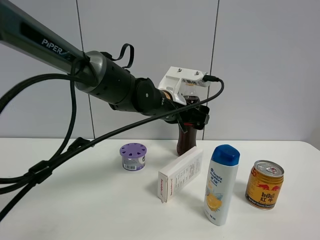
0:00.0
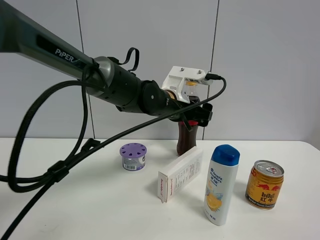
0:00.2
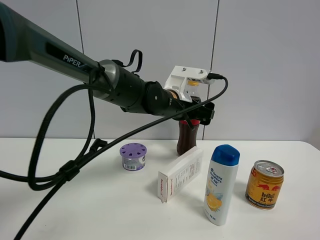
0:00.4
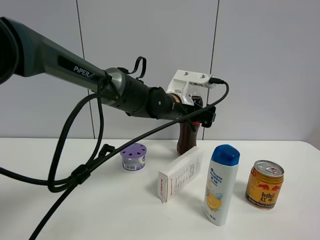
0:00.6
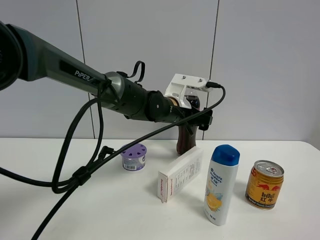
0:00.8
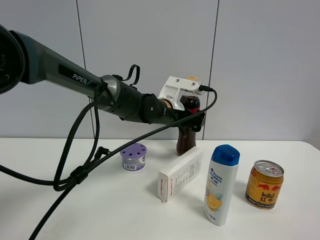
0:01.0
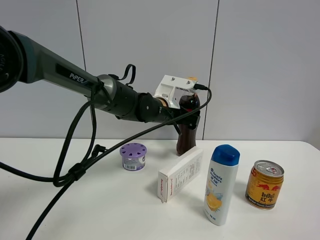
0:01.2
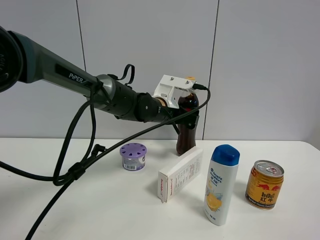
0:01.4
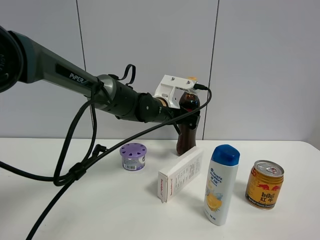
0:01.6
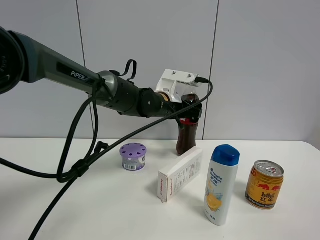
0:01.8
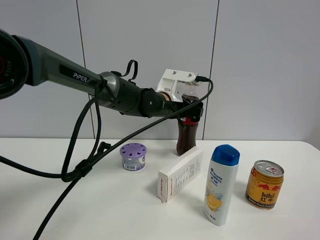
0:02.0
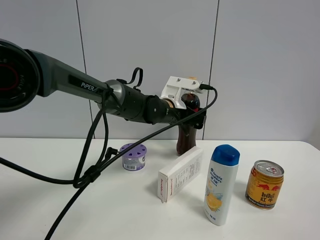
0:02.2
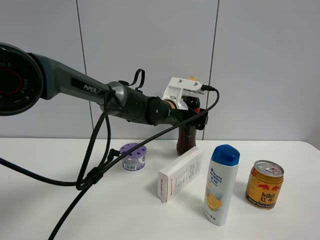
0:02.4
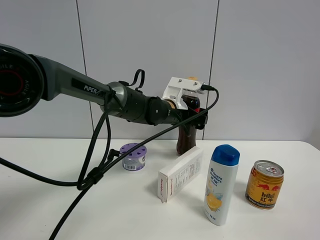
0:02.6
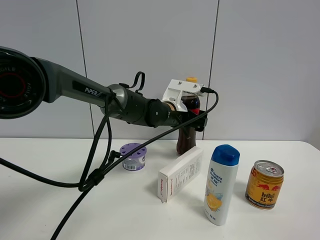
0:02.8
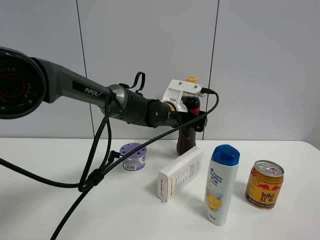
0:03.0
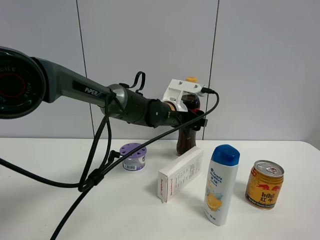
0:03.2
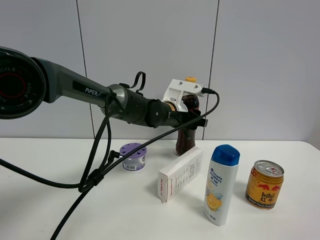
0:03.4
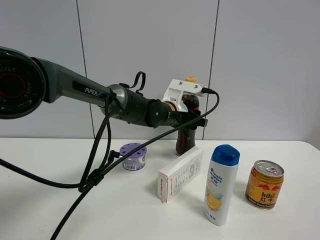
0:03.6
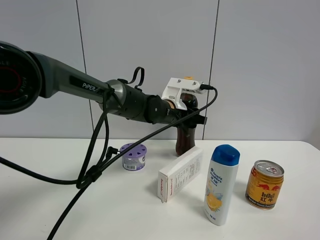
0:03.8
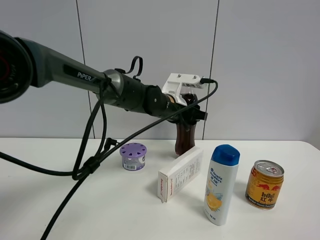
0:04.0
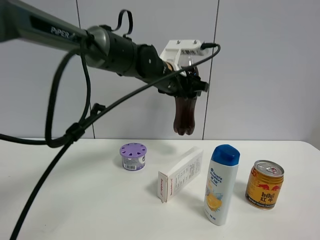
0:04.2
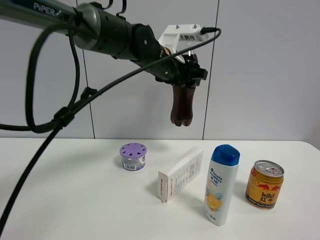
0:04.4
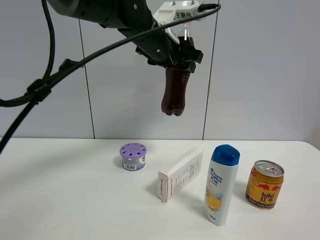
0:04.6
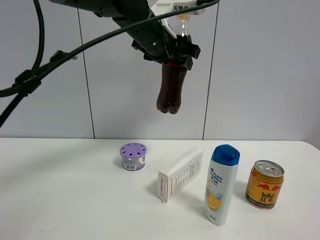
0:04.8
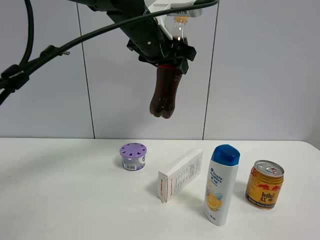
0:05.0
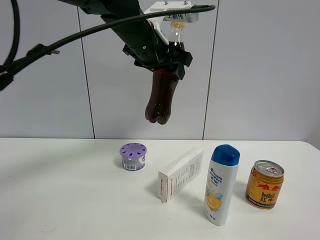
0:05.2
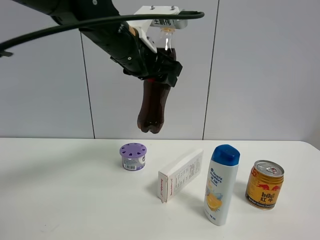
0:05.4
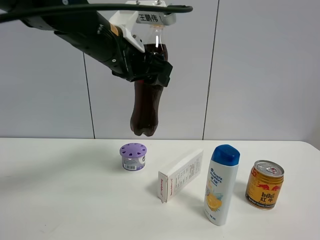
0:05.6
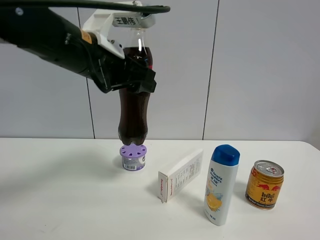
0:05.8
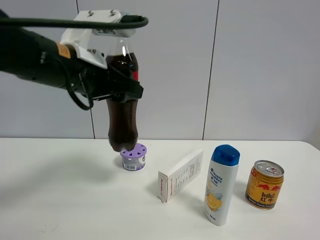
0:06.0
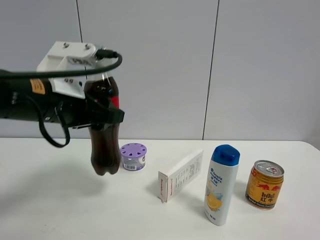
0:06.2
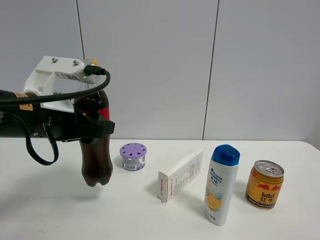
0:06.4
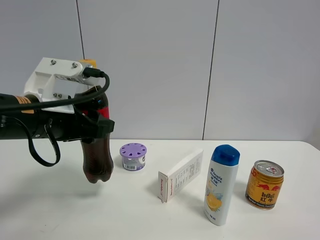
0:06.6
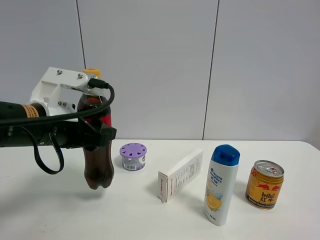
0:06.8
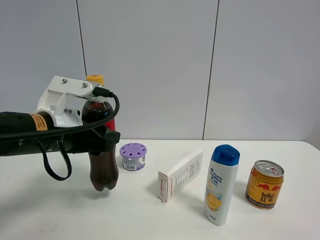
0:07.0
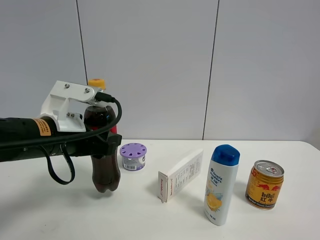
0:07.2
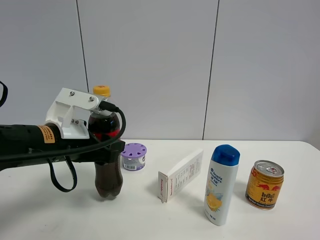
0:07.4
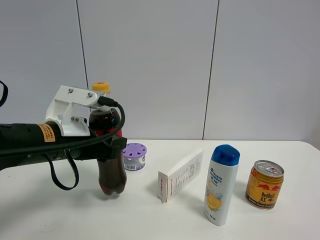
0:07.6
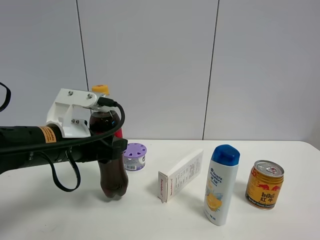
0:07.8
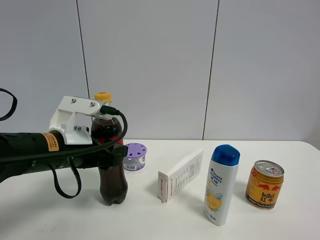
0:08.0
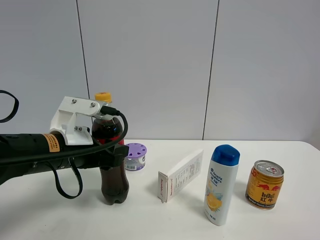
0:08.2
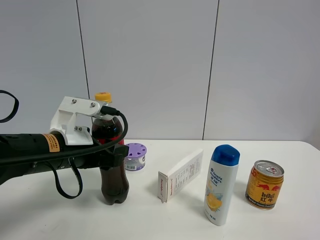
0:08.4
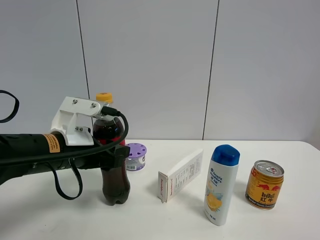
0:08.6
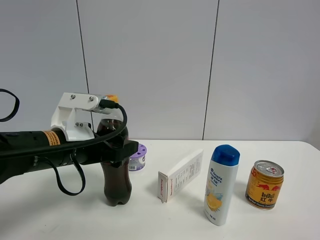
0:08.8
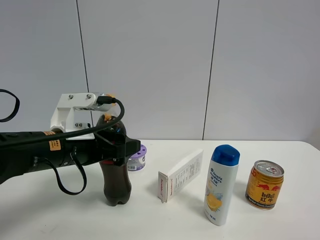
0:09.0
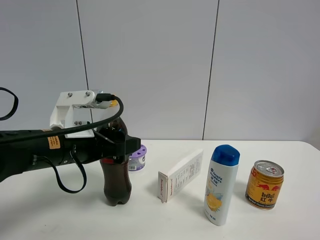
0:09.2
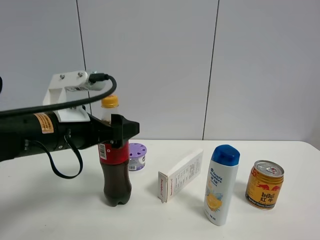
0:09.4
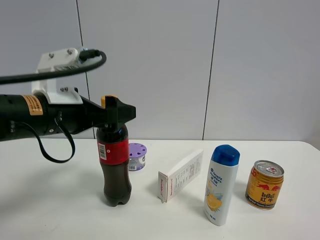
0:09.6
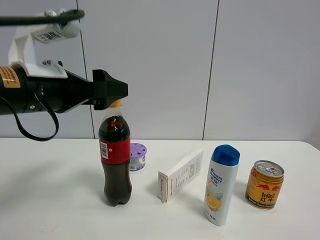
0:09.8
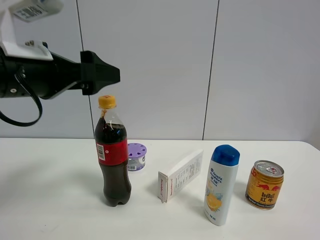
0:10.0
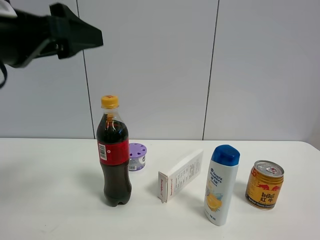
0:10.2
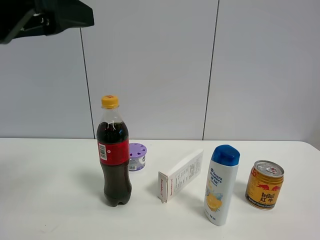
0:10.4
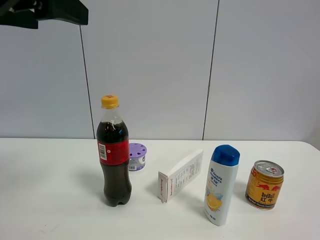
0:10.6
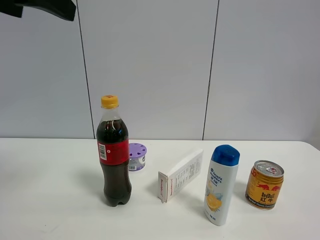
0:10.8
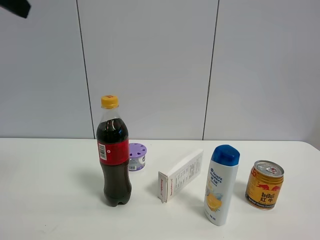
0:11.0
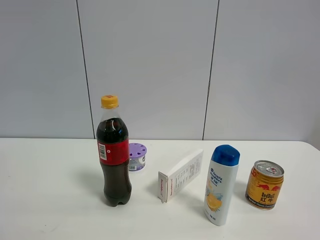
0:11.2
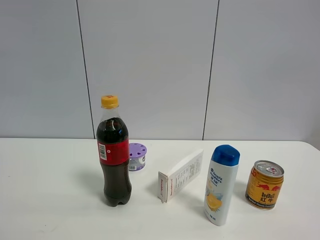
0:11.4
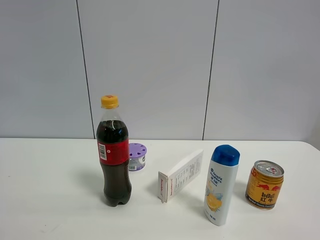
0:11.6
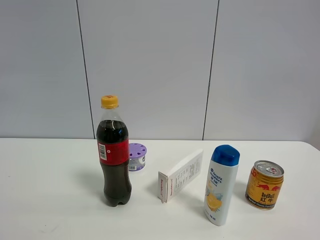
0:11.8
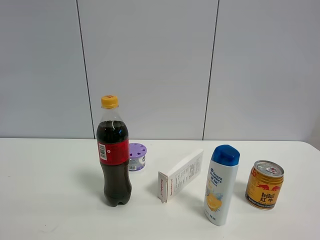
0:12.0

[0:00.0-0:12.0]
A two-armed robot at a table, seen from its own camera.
Task of the whole recording: the gripper move the object.
Step, 0:00.0 to 0:03.2: Grasp the coke with the left gripper.
Step, 0:03.4 to 0:09.2: Place the coke on the table with the left gripper.
0:00.0 to 0:01.6: The left gripper heads forward, covering roughly 5 cm.
0:01.6 to 0:03.0: The grippers stay close to where they were, moving slightly.
0:03.0 to 0:04.4: The left gripper travels upward by approximately 15 cm, and closes.
0:04.4 to 0:06.0: The left gripper travels backward and to the left by about 20 cm.
0:06.0 to 0:07.6: The left gripper heads downward, covering about 10 cm.
0:07.6 to 0:09.0: The left gripper opens up.
0:09.0 to 0:10.4: The left gripper travels upward by about 20 cm.
0:10.4 to 0:12.0: The left gripper heads to the left, backward and upward, covering approximately 20 cm.

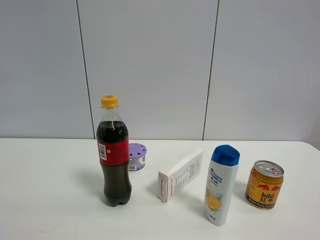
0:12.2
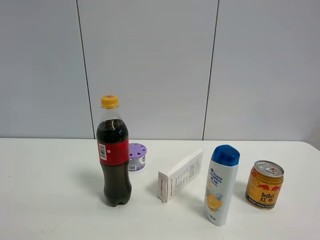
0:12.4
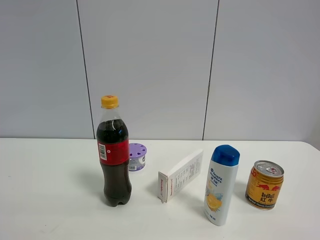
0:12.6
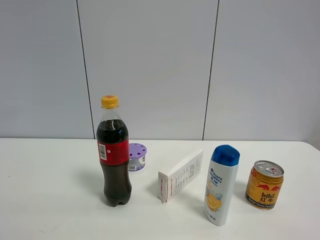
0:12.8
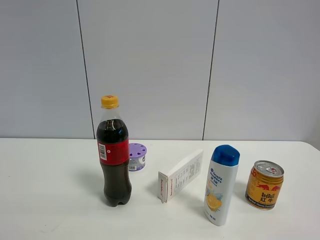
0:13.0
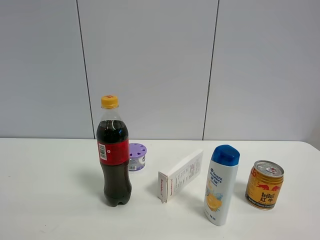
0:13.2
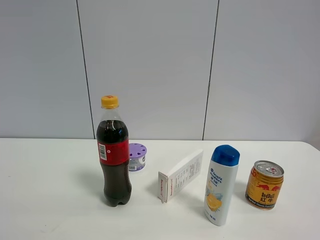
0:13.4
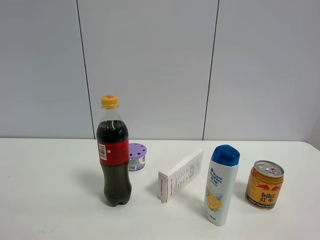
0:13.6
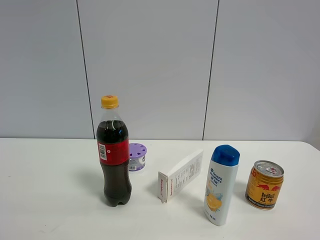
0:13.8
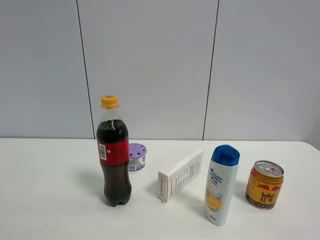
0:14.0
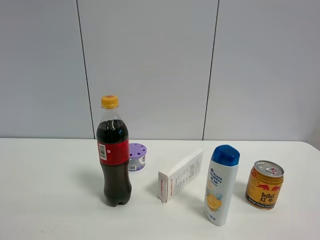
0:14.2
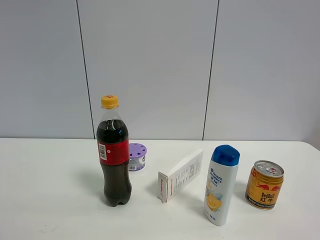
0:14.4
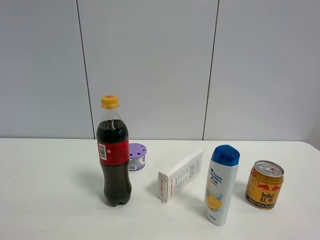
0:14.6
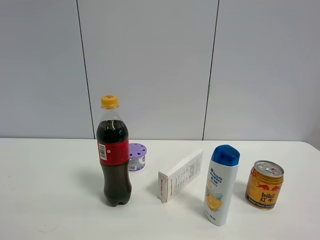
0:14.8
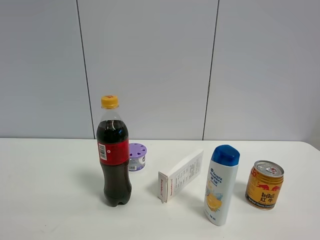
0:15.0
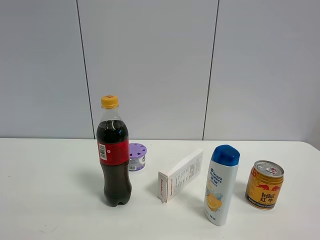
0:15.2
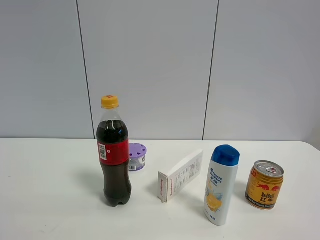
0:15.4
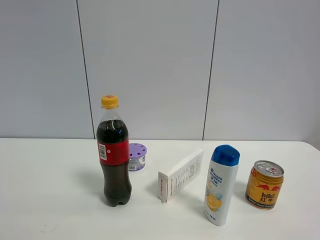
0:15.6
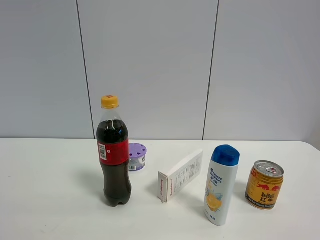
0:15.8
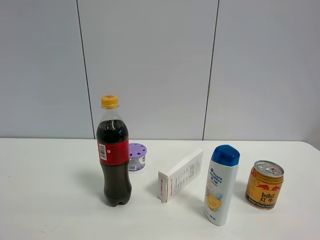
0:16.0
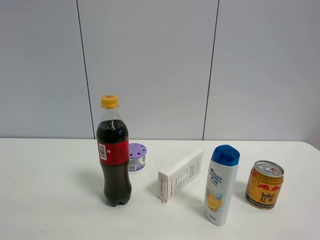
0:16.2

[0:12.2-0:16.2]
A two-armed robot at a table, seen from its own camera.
Task of the whole recording: the gripper move the object.
0:14.8 to 0:16.2: The two grippers keep their place.

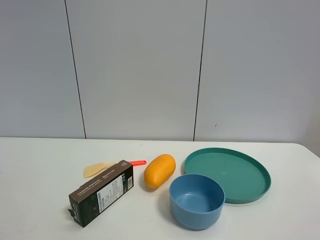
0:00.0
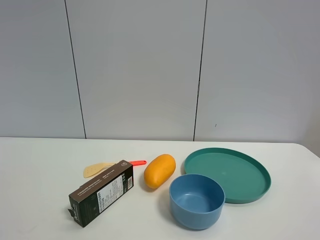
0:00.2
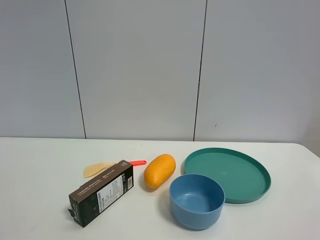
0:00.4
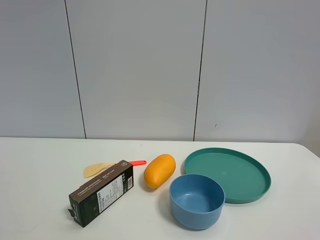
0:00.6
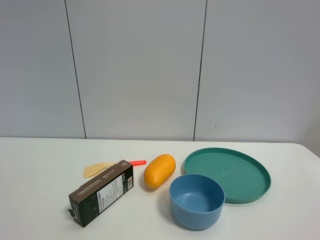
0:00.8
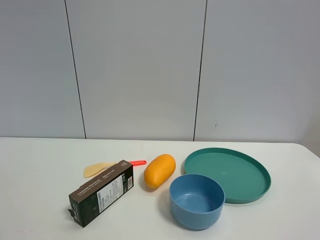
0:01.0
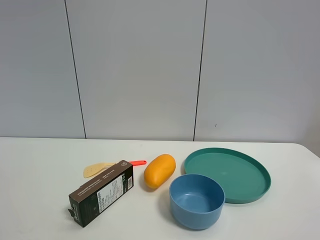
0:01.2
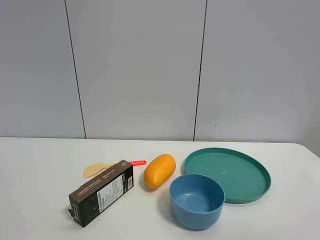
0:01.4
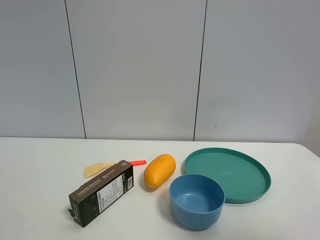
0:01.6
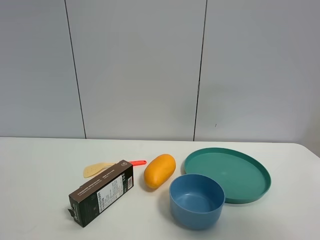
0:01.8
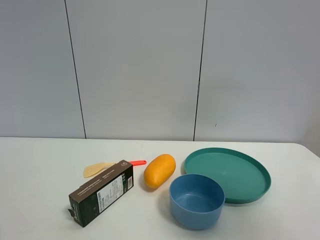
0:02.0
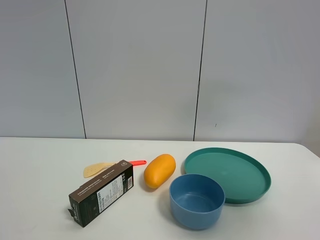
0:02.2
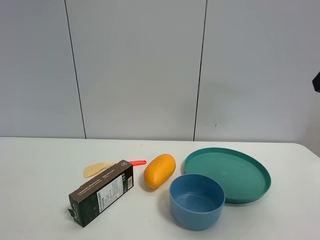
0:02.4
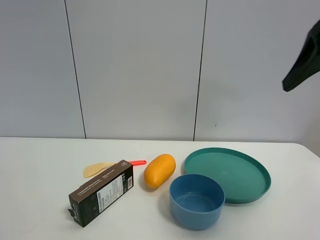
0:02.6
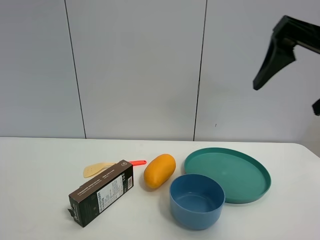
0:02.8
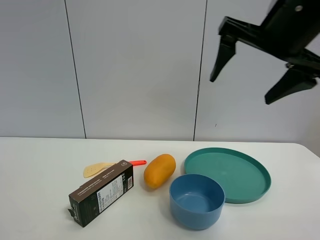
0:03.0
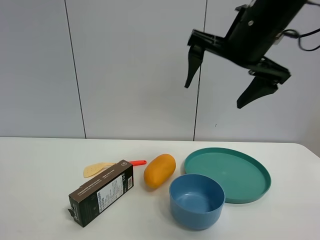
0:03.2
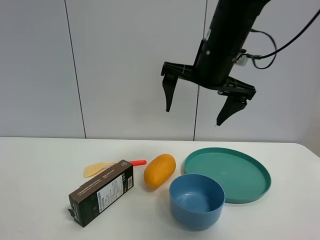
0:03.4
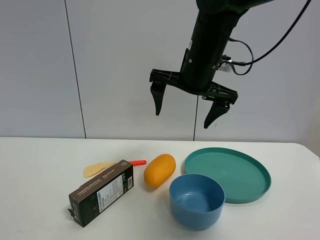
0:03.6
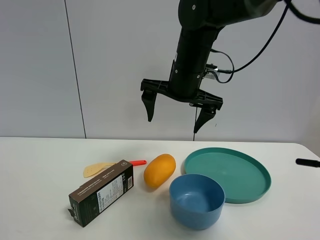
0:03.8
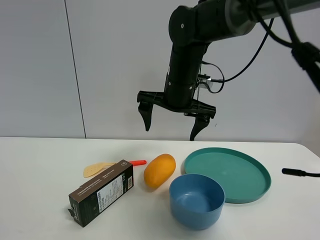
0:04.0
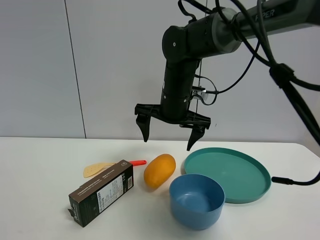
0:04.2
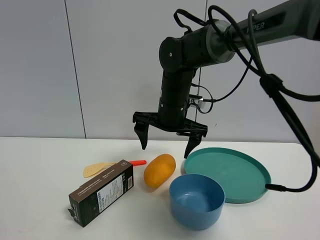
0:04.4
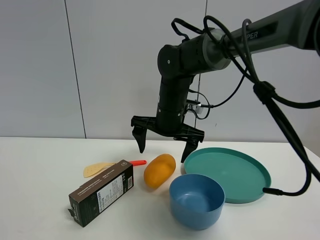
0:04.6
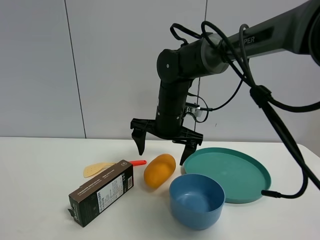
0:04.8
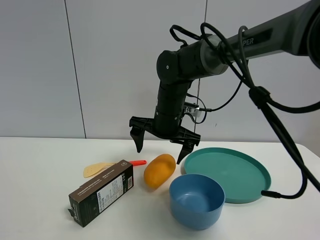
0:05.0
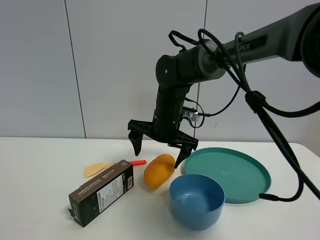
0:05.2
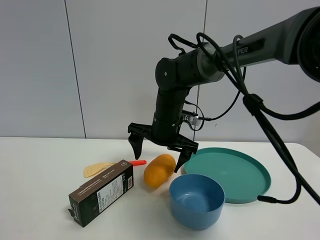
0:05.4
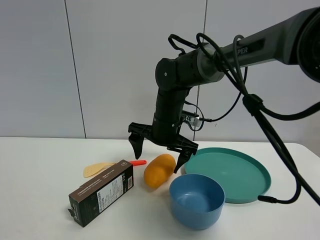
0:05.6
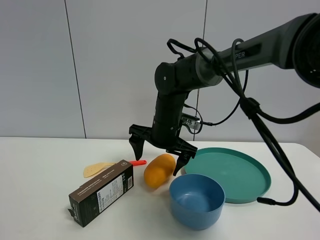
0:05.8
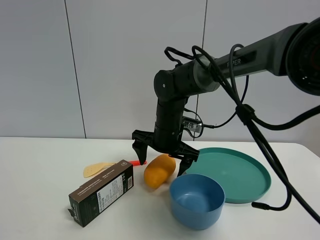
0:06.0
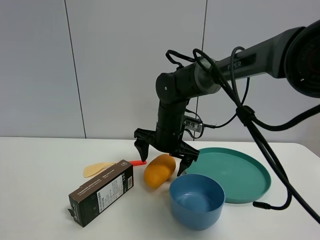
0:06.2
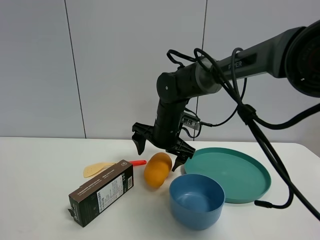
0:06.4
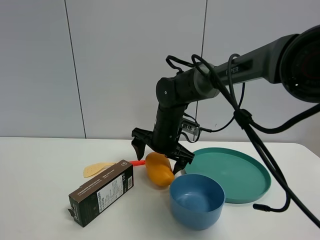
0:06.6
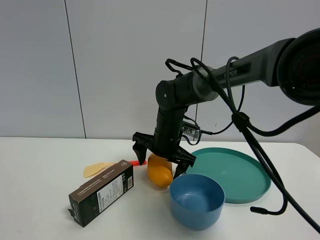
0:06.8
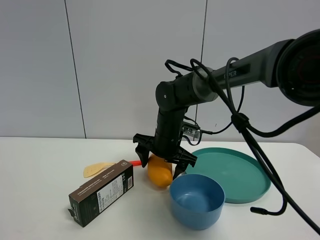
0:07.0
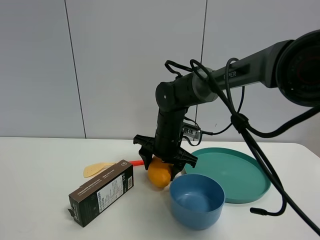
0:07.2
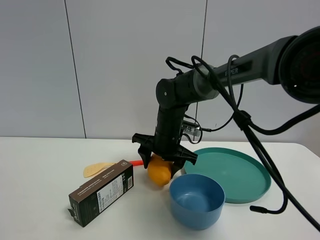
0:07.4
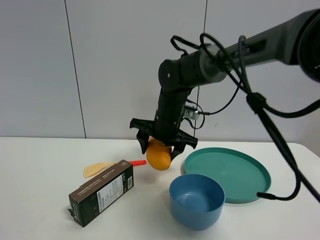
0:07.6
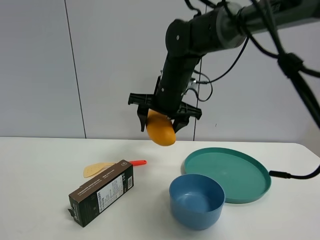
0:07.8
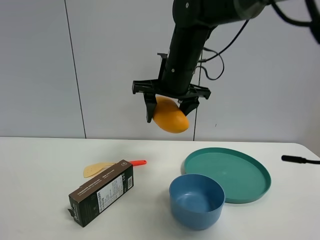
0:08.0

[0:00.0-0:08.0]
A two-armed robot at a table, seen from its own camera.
Task of the whole recording: the gripper move the object.
Step, 0:00.0 to 0:07.2: Grasp the mango with the right gripper.
0:00.0 to 0:01.6: The right gripper moves upward and forward, approximately 10 cm.
0:01.6 to 0:03.2: The right gripper shifts roughly 30 cm forward and to the left.
0:03.2 to 0:04.8: The right gripper travels downward, to the left and forward by roughly 20 cm.
0:04.8 to 0:06.4: The grippers move only a little.
0:06.4 to 0:08.0: The right gripper is displaced upward by roughly 15 cm, and closes.
